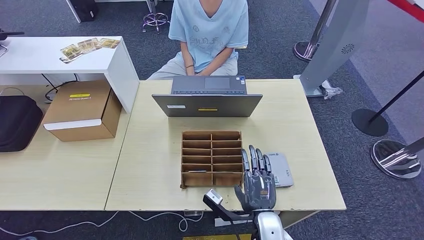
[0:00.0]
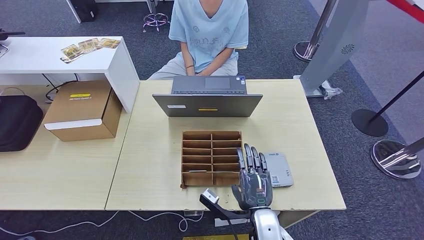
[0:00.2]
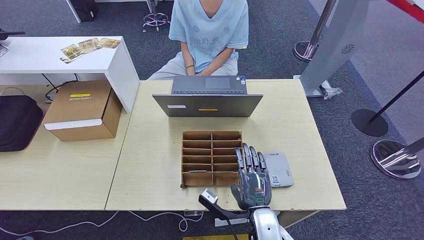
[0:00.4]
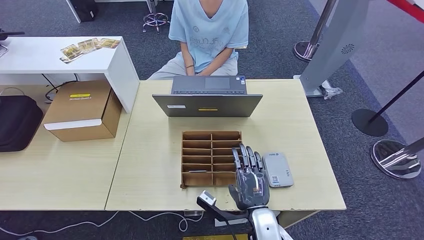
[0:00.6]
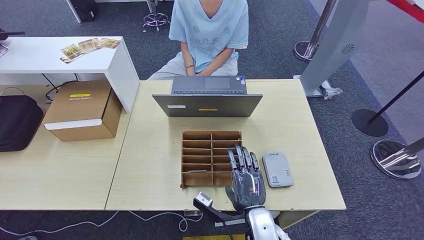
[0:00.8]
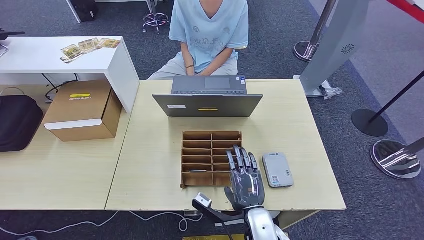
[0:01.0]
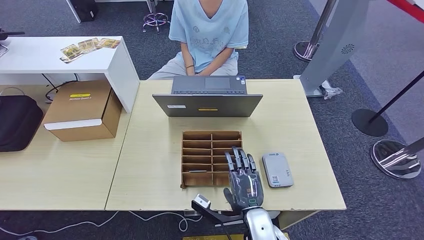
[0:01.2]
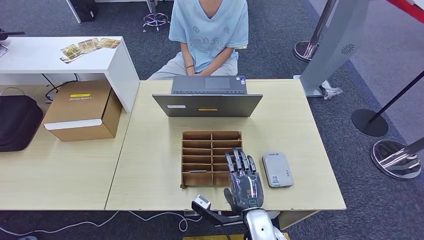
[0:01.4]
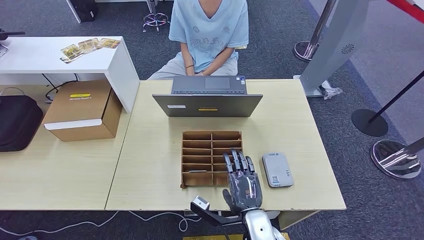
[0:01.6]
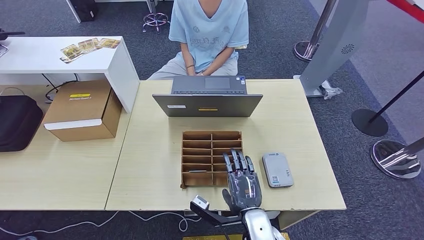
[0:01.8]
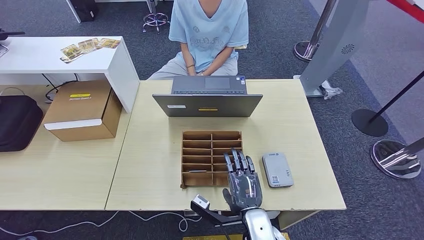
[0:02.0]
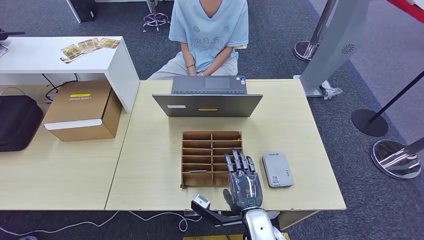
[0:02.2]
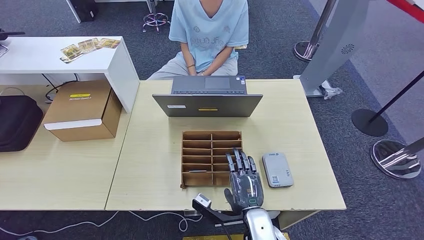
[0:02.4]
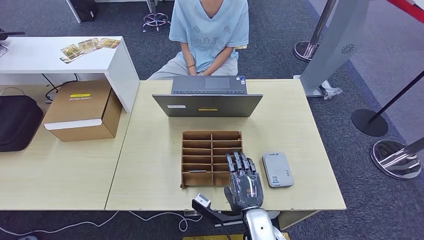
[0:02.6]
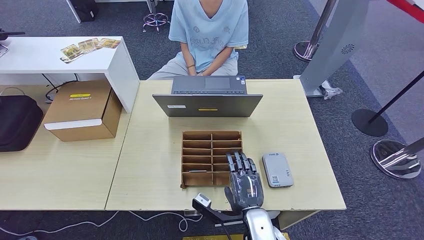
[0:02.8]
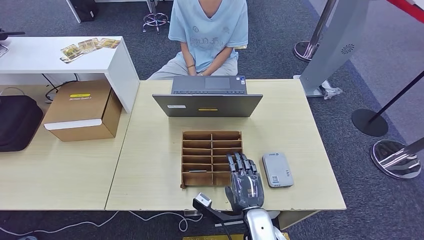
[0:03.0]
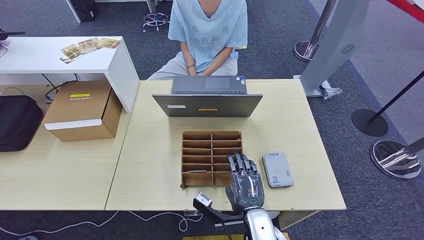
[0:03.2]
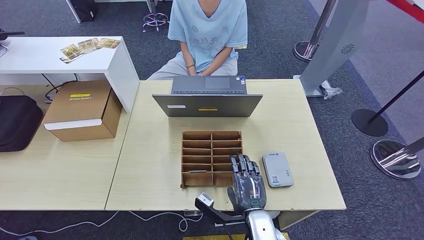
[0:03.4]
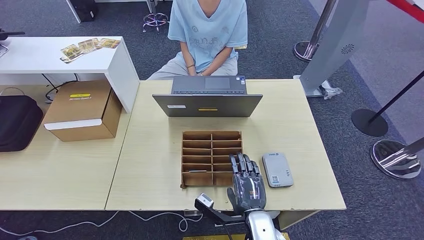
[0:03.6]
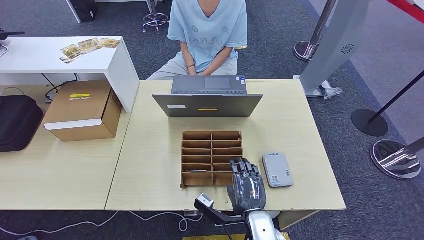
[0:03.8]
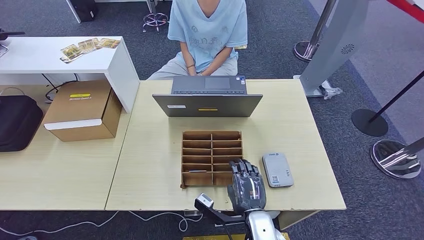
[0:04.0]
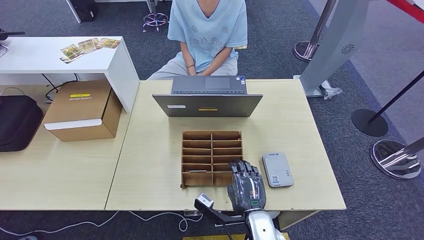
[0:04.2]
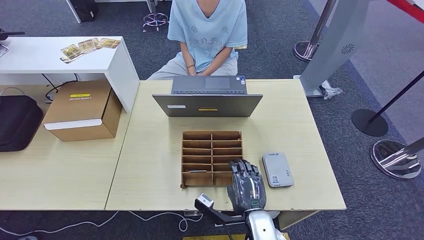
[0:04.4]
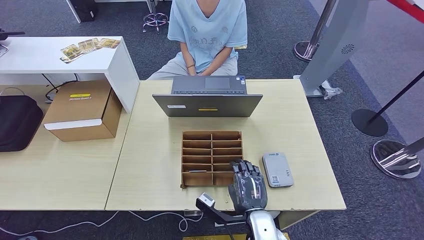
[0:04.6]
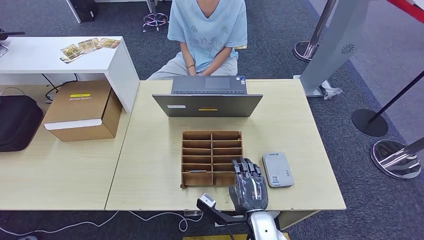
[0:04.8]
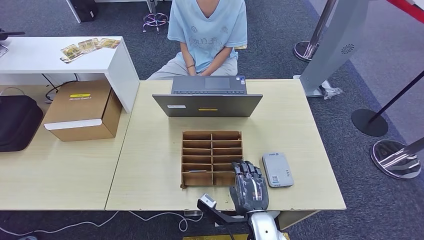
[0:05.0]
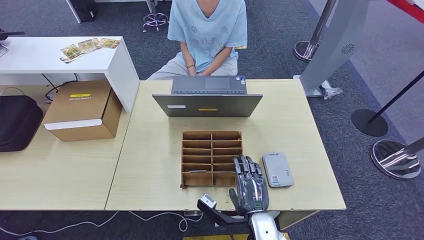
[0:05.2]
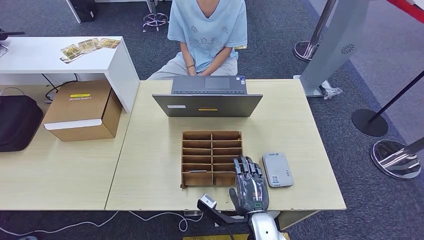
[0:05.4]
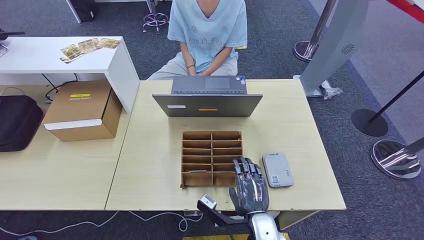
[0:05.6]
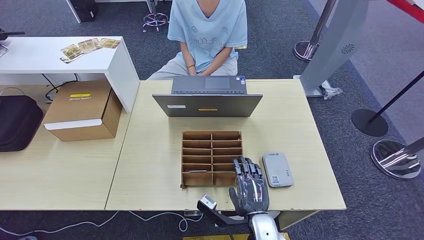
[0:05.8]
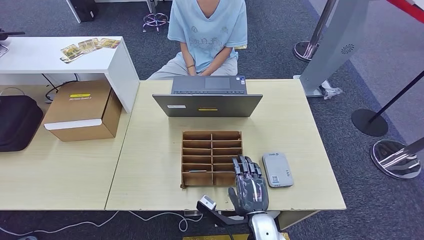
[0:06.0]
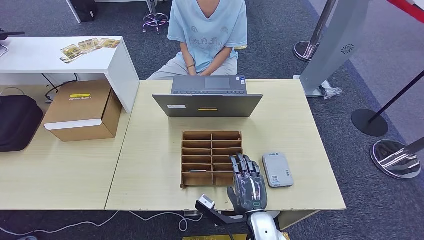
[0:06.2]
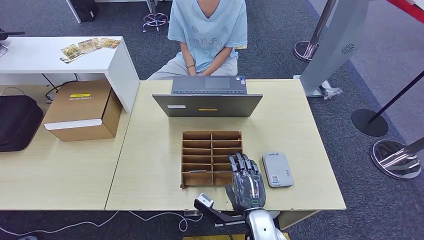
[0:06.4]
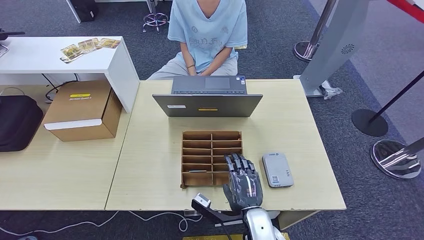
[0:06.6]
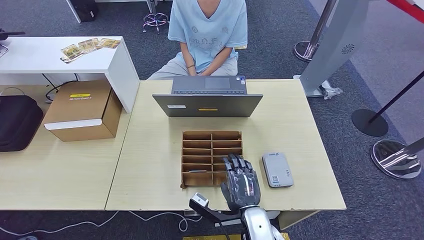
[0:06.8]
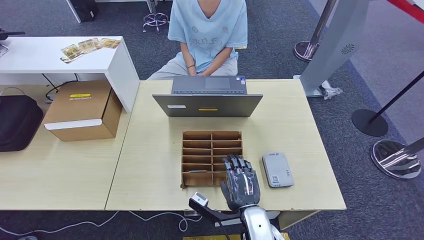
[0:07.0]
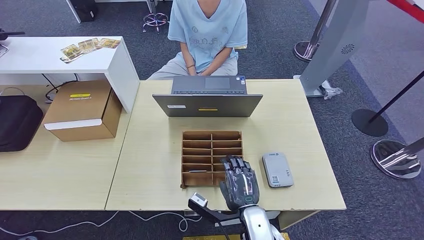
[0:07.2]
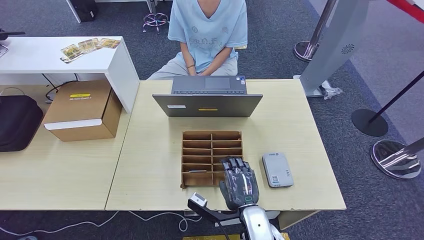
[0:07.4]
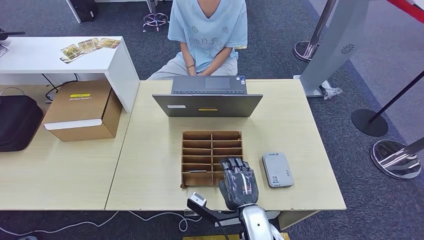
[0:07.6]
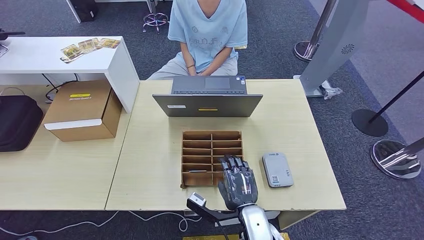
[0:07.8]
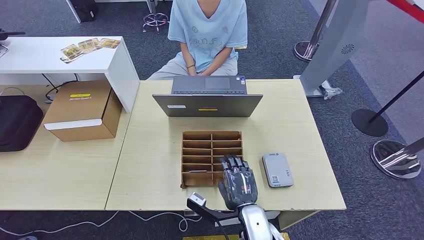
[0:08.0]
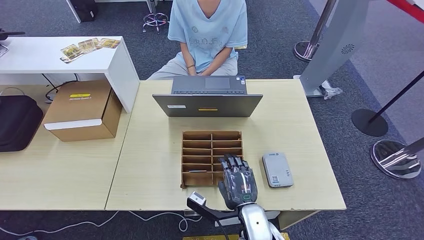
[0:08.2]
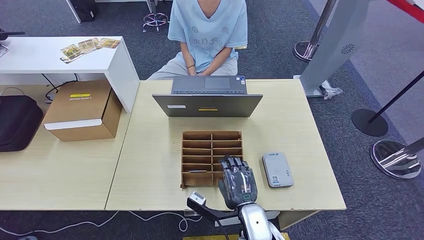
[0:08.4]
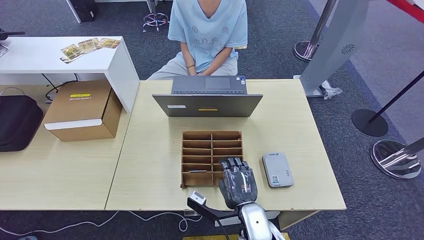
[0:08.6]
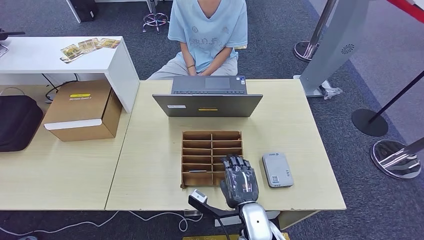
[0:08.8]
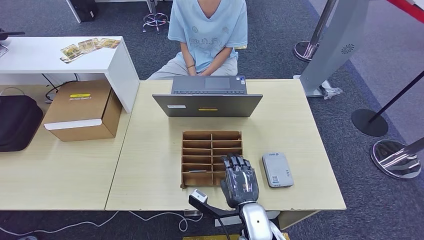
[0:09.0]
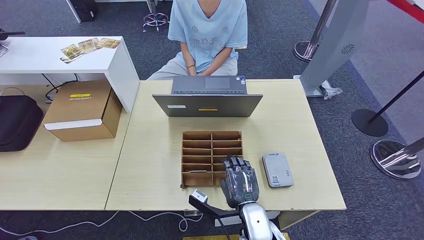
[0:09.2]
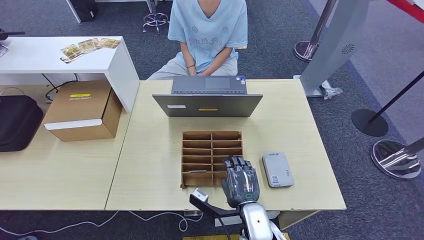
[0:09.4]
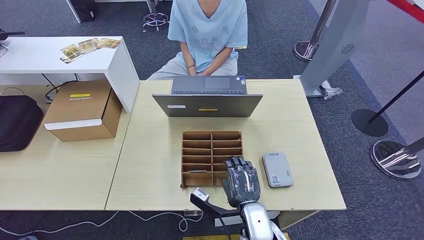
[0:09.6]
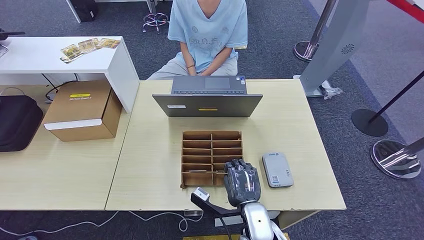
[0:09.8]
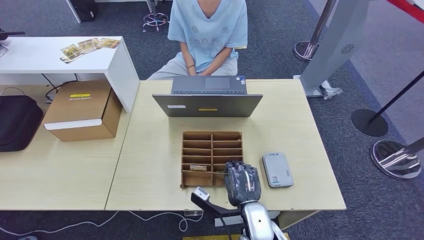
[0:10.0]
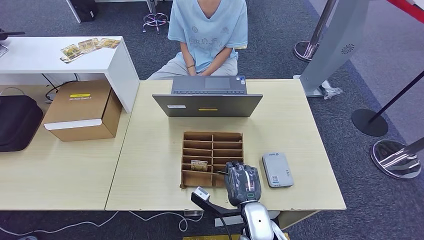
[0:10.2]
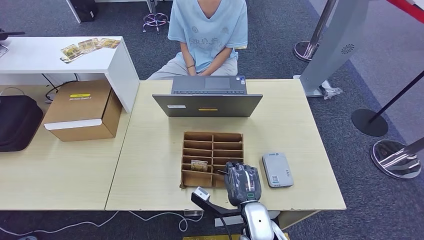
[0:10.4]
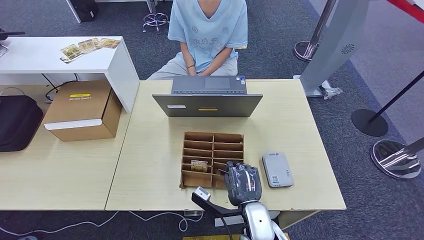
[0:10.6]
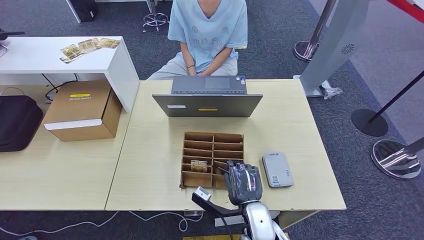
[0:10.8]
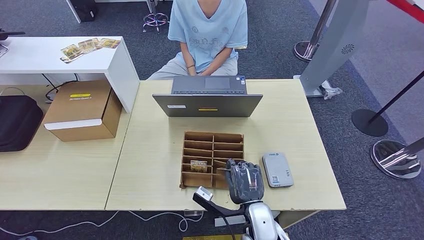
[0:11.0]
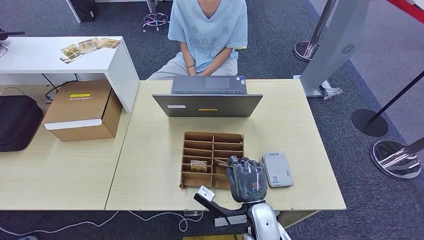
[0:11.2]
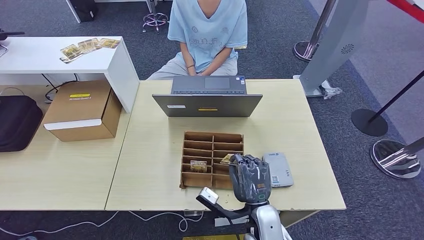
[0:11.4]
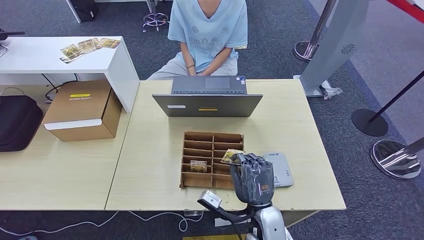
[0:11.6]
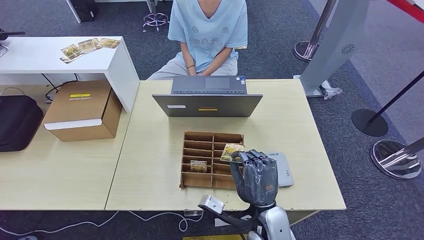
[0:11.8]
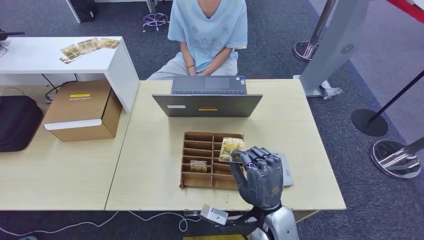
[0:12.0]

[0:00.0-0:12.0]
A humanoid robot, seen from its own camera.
0:00.0 to 0:01.6: The hands stay close to where they were, moving slightly.
0:01.6 to 0:06.0: The two hands keep their place.
0:06.0 to 0:07.6: The hands stay close to where they were, moving slightly.
0:07.6 to 0:09.0: Both hands stay about where they are.
0:09.0 to 0:10.4: The two hands keep their place.
0:10.4 to 0:12.0: The right hand goes approximately 5 cm upward.

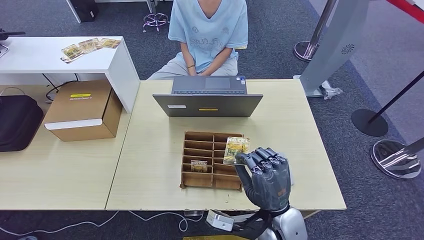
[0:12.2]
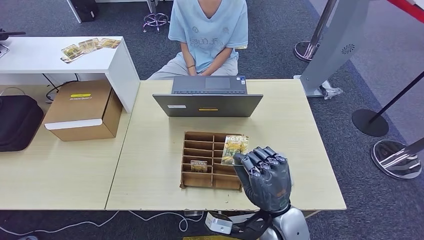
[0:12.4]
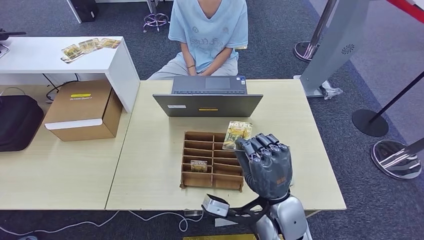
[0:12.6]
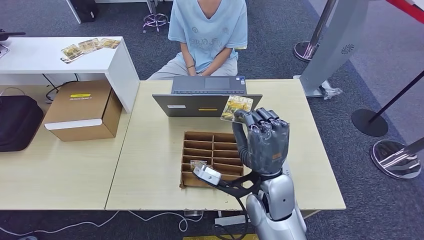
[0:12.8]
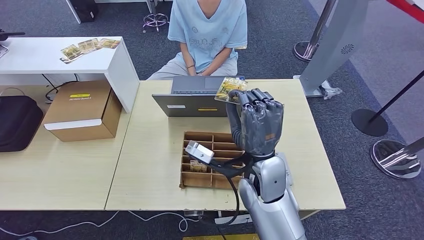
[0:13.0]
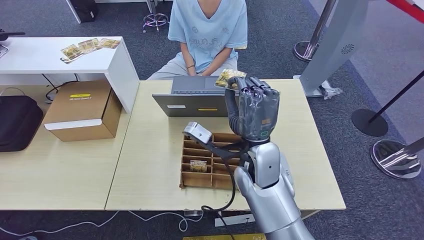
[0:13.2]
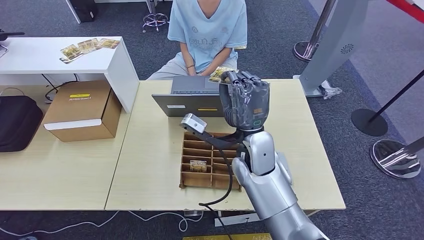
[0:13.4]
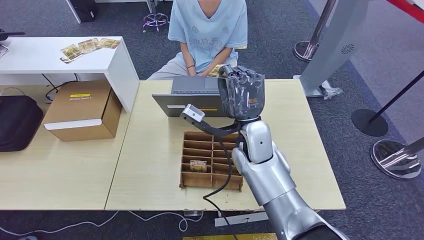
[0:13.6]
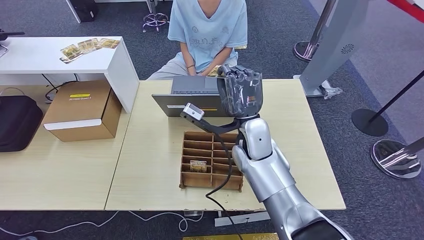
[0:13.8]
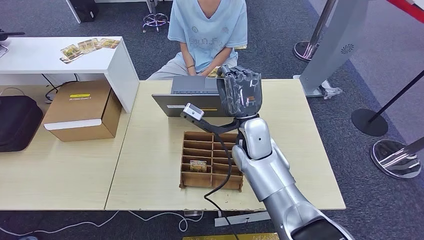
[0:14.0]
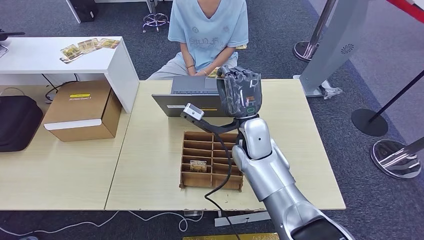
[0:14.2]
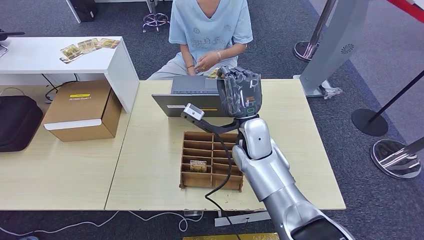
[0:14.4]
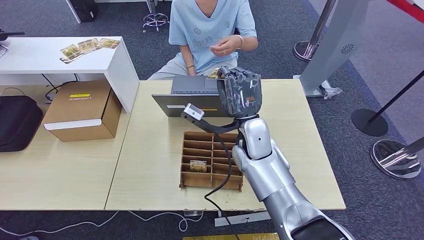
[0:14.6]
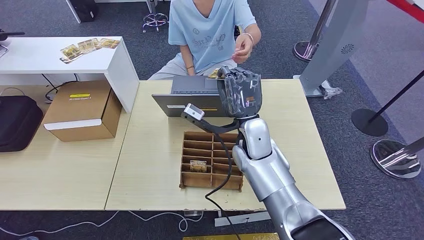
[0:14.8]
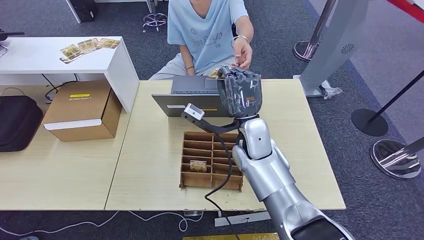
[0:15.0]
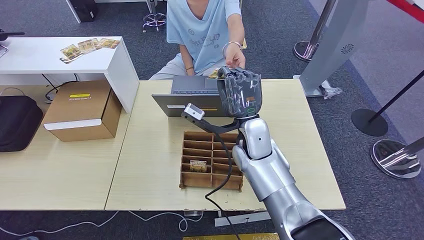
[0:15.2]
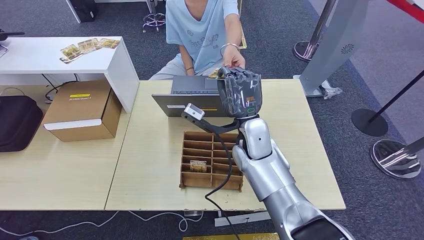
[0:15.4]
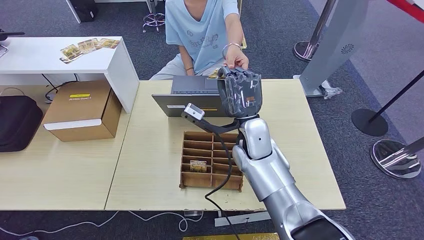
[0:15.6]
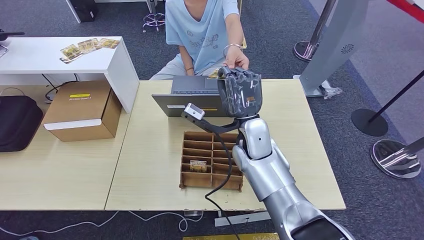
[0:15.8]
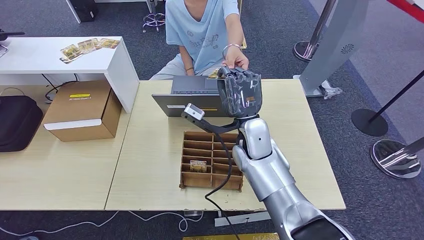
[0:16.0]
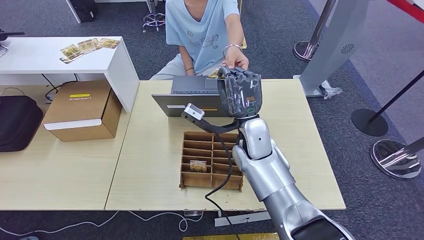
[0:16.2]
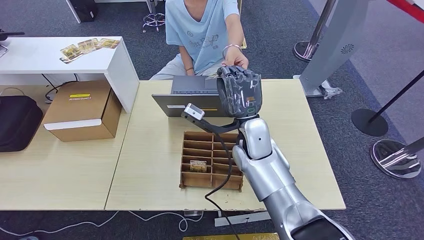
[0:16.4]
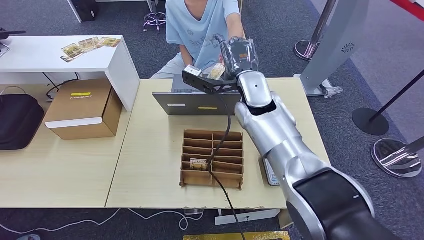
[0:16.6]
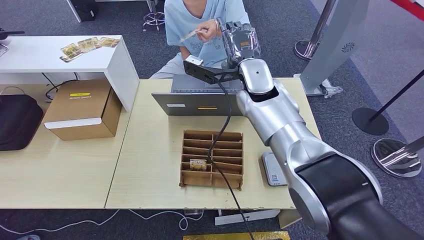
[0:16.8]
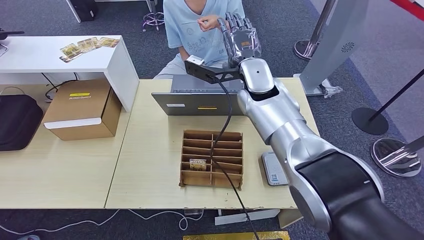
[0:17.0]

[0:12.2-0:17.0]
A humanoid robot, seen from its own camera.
0:12.2 to 0:13.8: The right hand goes some 20 cm forward and upward.
0:13.8 to 0:15.4: Both hands stay put.
